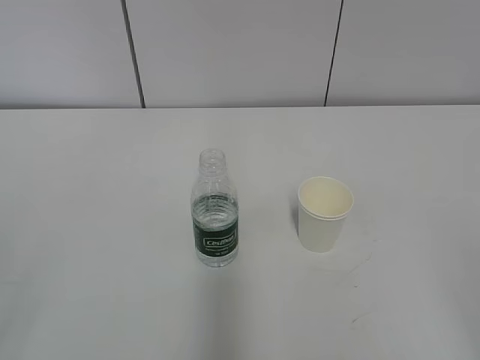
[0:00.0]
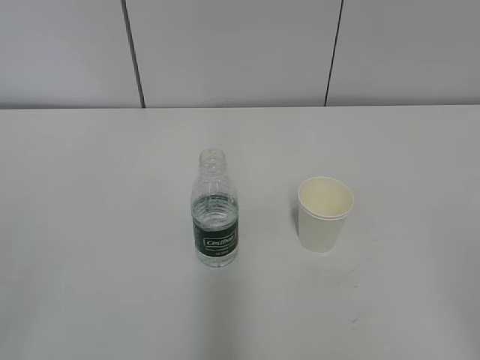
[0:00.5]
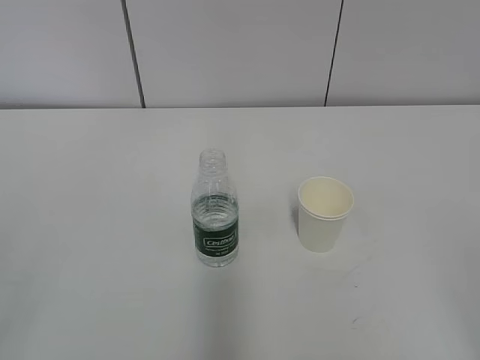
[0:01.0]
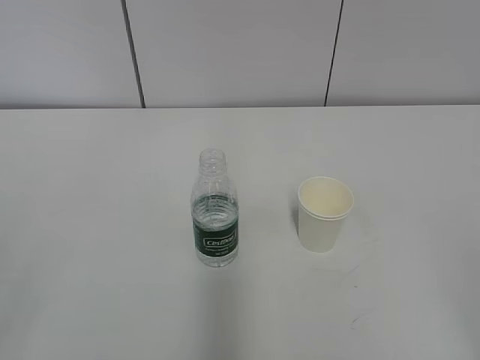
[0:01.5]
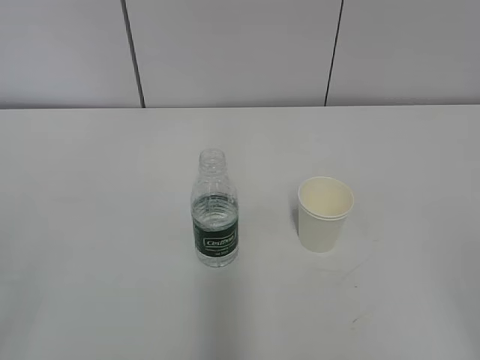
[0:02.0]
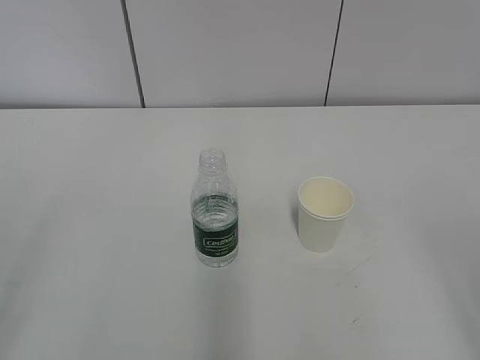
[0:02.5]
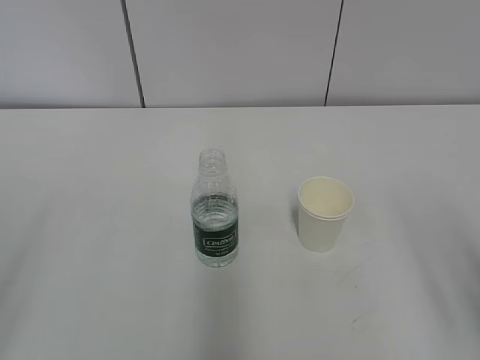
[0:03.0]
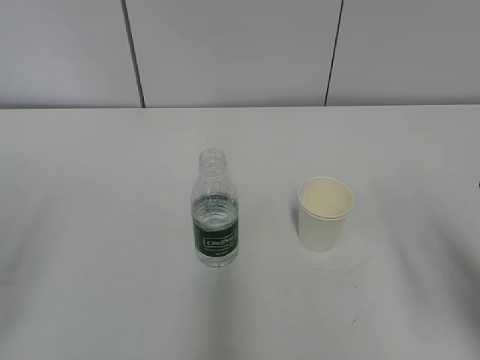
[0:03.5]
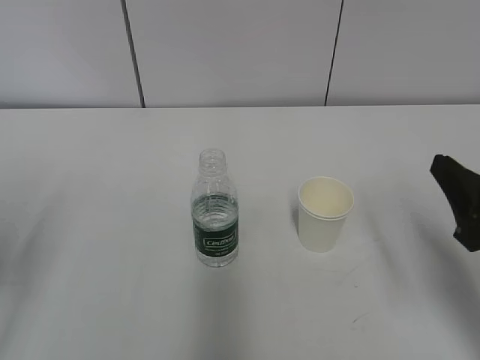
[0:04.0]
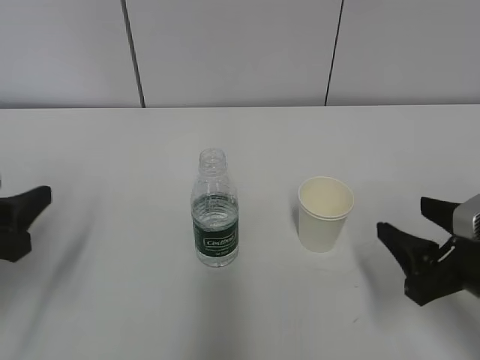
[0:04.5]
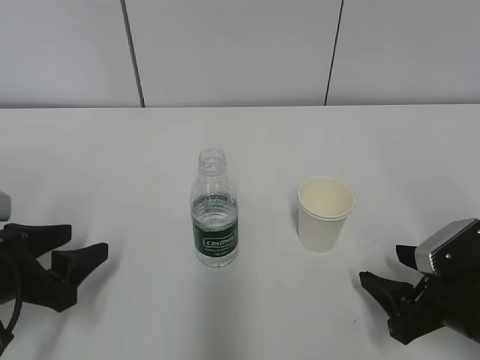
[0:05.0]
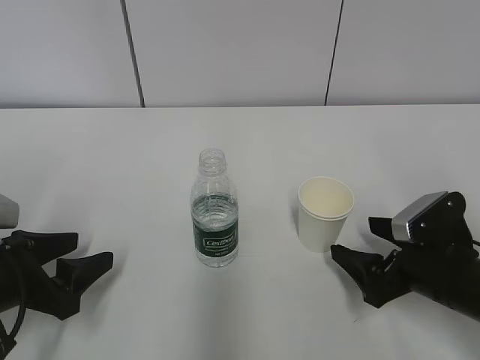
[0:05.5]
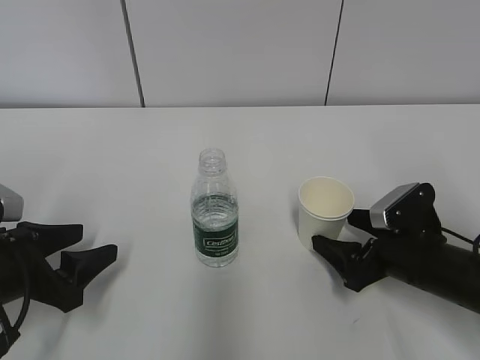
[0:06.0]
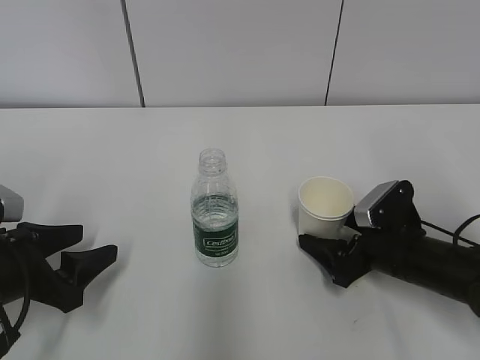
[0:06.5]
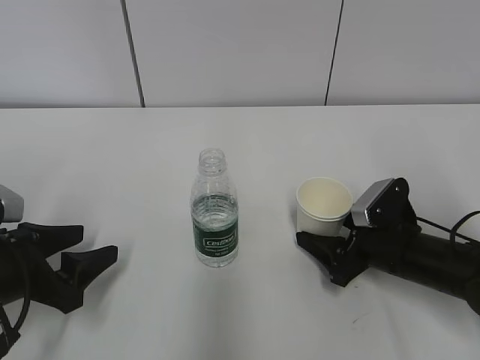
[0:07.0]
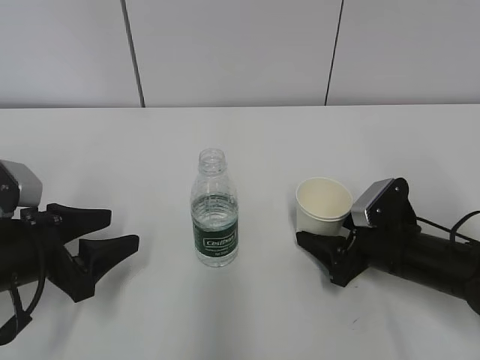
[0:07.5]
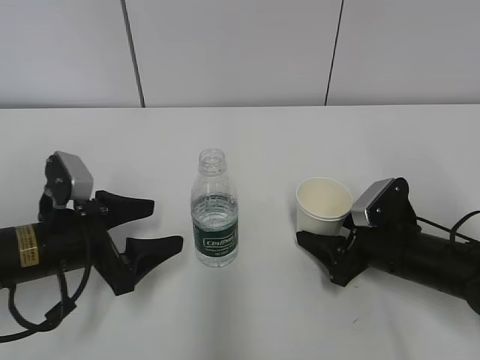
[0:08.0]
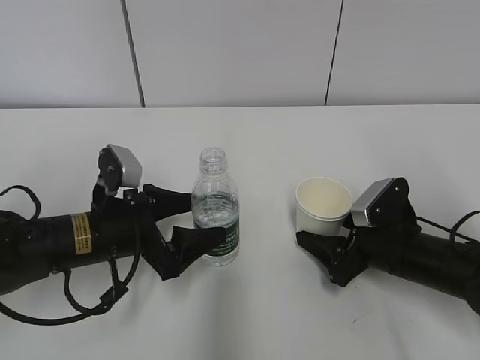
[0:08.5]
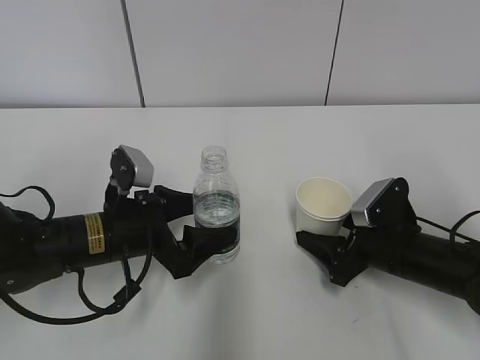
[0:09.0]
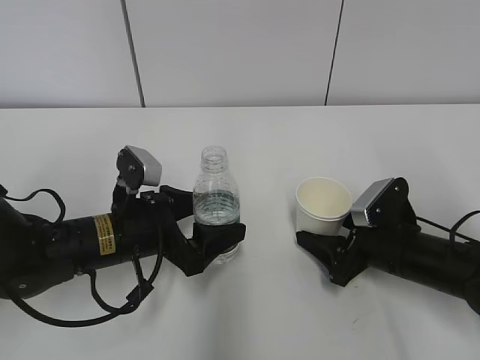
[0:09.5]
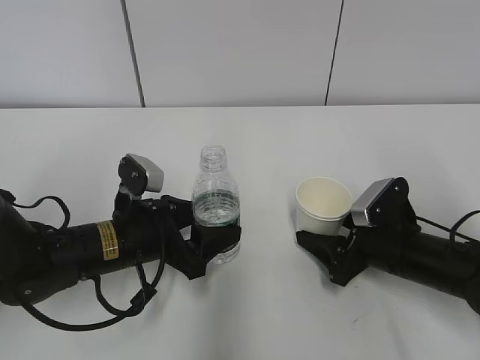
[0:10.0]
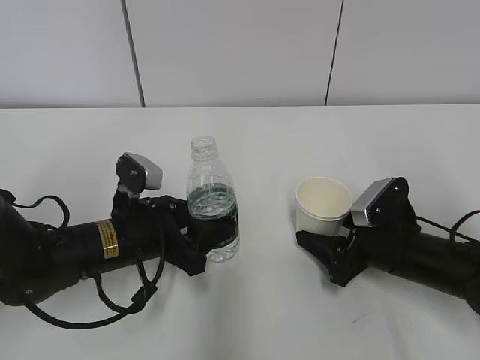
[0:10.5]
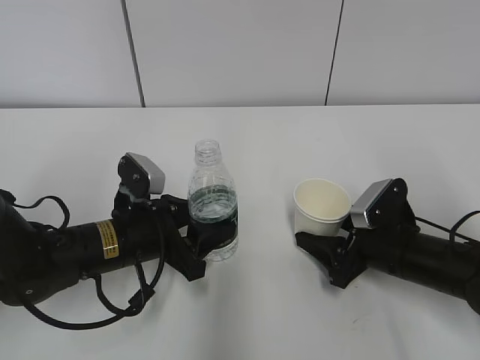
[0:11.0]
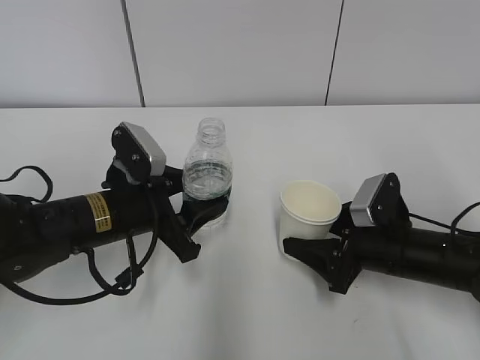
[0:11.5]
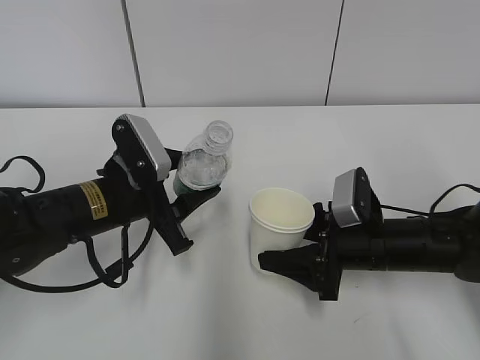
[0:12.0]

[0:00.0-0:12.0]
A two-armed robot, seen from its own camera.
Step, 0:00.0 to 0:09.0: Grab the paper cup with the right hand.
Step, 0:09.5 to 0:11.5: Lift the paper cup with the right hand.
0:02.0 to 0:04.0: The right gripper travels forward and downward by some 20 cm. Meanwhile the left gripper is displaced forward by some 15 cm.
0:04.0 to 0:06.0: The right gripper travels downward and forward by some 15 cm, and opens. The left gripper goes roughly 15 cm downward, to the right and forward.
0:06.0 to 0:08.0: The left gripper is displaced to the right by roughly 5 cm, and opens up, while the right gripper closes.
0:08.0 to 0:10.0: The left gripper moves to the right, some 5 cm, and closes up.
0:10.0 to 0:12.0: The left gripper heads upward, covering some 5 cm, and closes up.

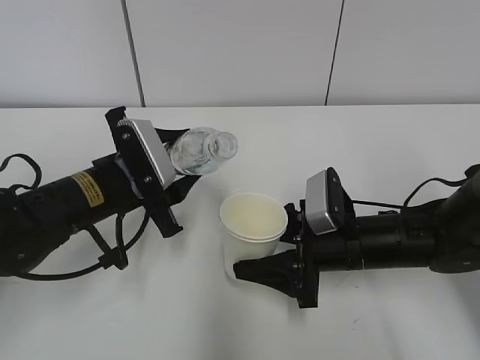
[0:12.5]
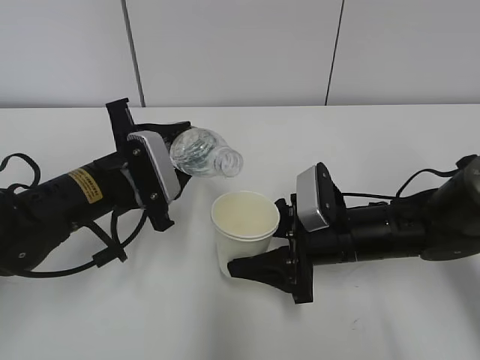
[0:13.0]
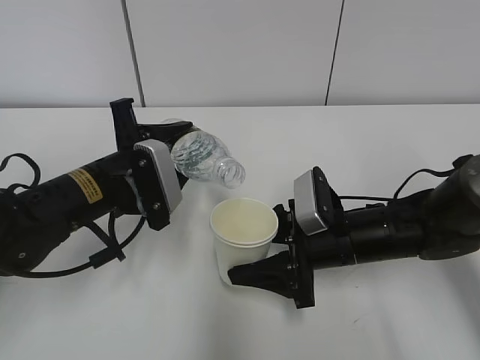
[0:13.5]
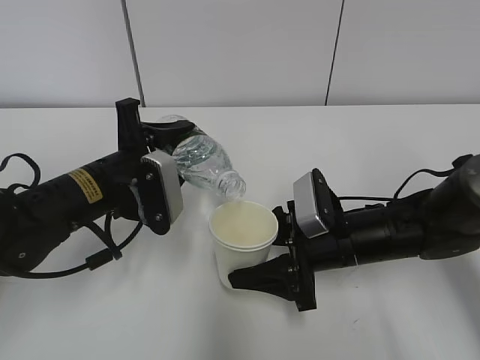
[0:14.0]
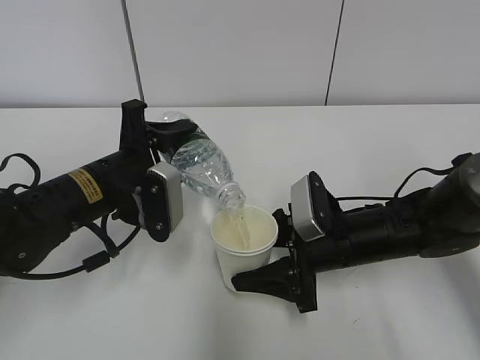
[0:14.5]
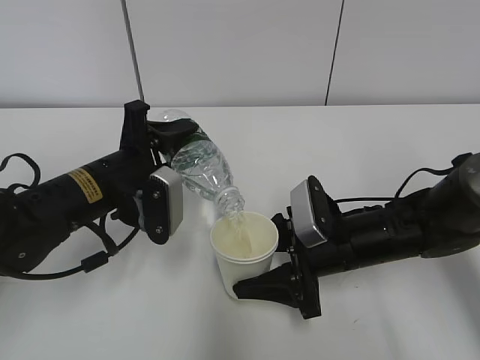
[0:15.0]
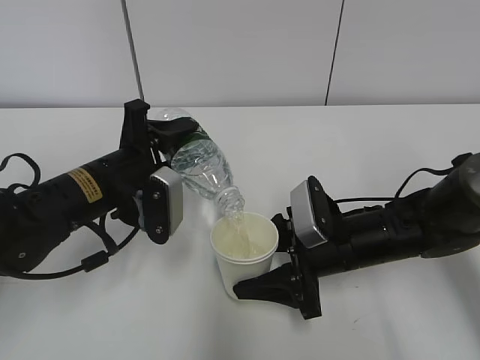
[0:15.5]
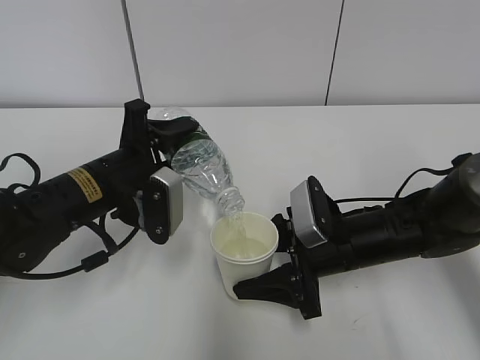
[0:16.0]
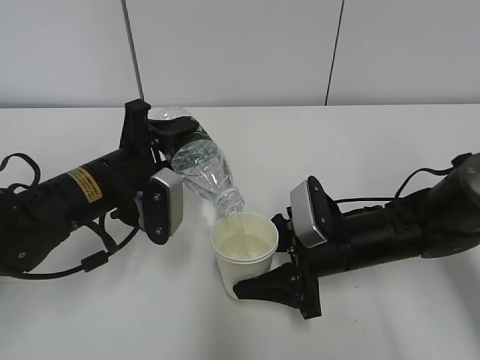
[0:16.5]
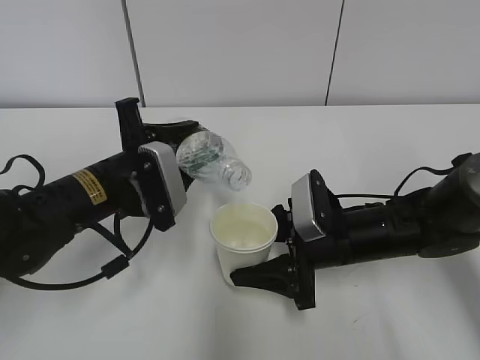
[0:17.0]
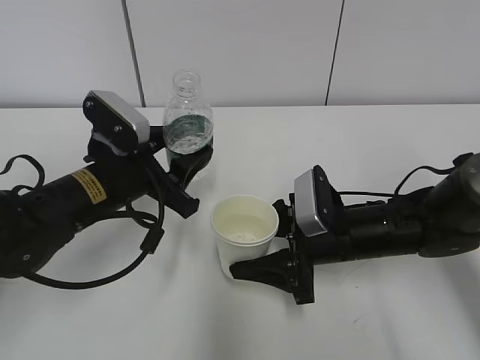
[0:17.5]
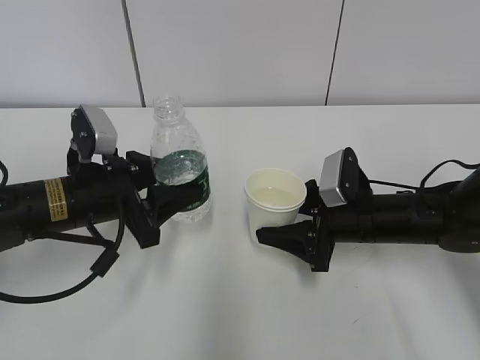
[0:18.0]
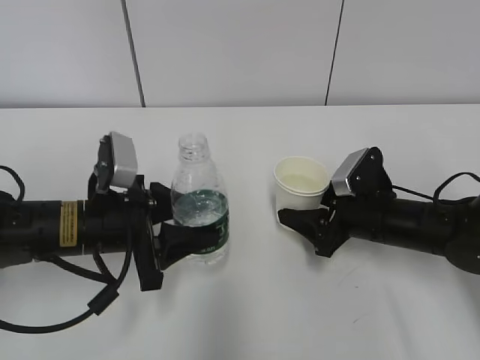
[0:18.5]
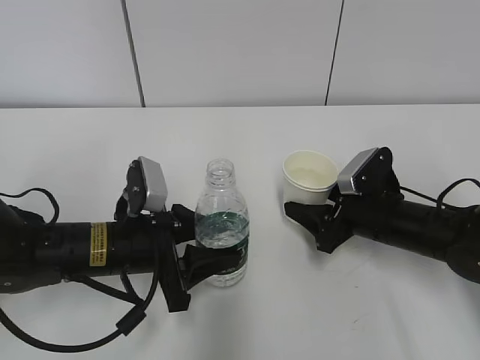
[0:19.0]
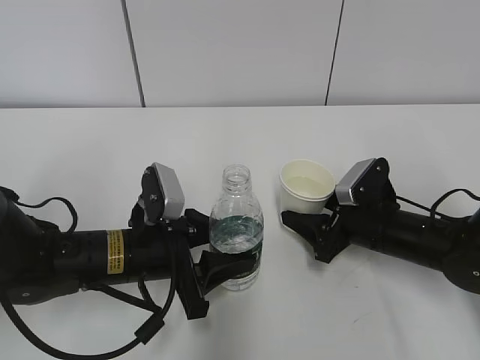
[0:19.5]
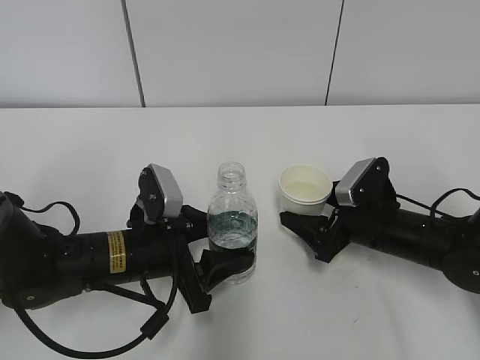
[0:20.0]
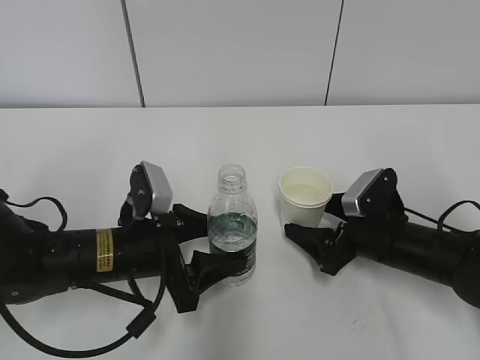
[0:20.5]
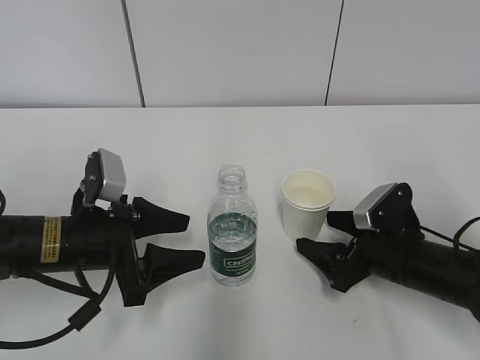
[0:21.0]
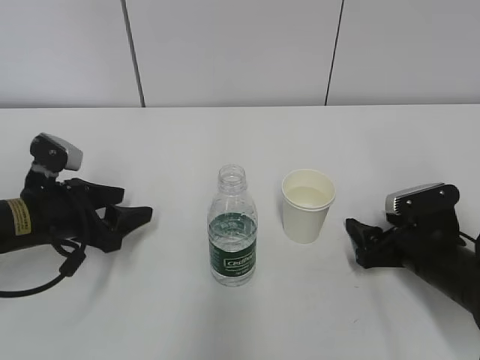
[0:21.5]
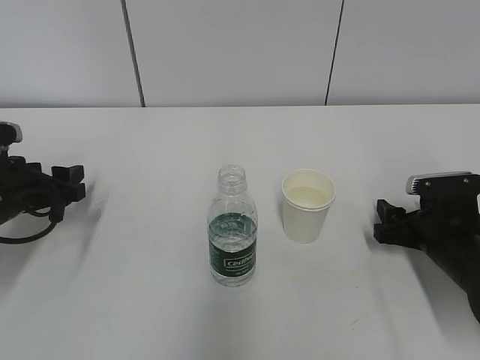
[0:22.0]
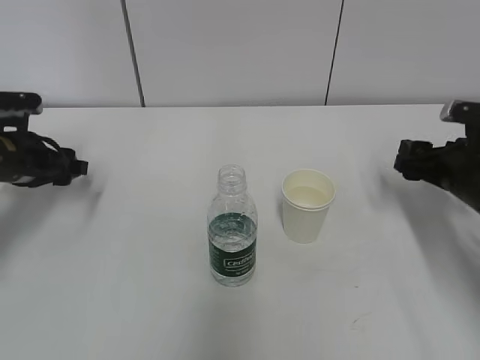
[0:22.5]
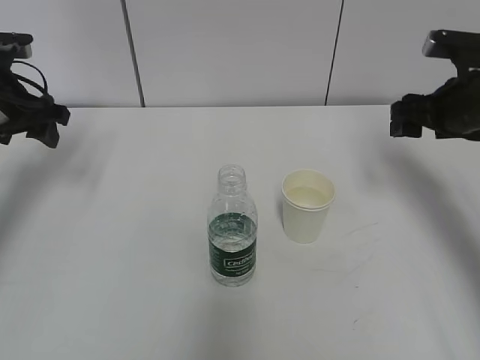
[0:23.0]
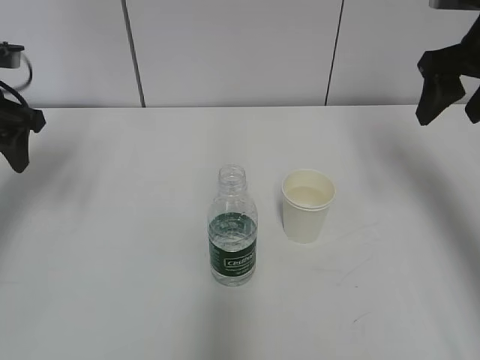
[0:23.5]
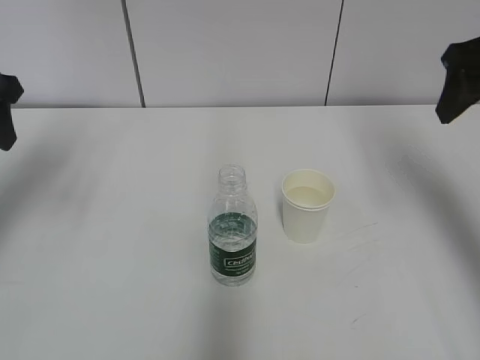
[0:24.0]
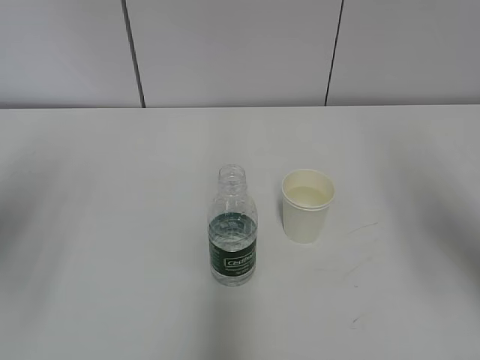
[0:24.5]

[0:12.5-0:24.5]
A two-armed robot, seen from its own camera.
Step, 0:12.5 to 0:14.0: Fill water with the right hand.
0:14.5 to 0:16.5: The grippers move only a little.
0:16.5 to 0:18.5: The right gripper moves to the right, approximately 5 cm.
0:18.5 to 0:20.5: The right gripper opens its fingers, while the left gripper opens.
0:20.5 to 0:22.5: The right gripper shifts approximately 10 cm to the right and upward, and closes up, while the left gripper goes roughly 20 cm to the left and forward.
0:22.5 to 0:24.5: The left gripper heads backward and upward, covering some 25 cm, while the right gripper moves upward and backward, about 25 cm.

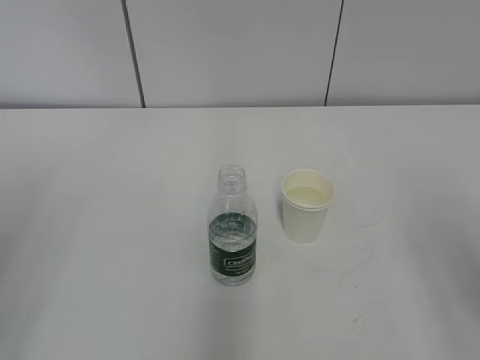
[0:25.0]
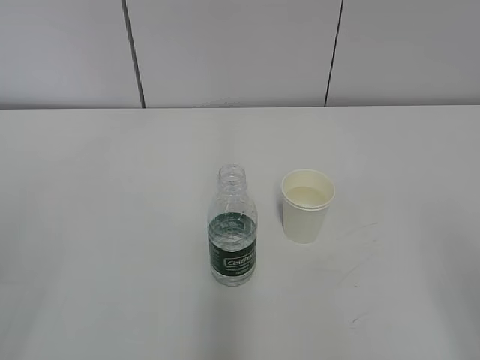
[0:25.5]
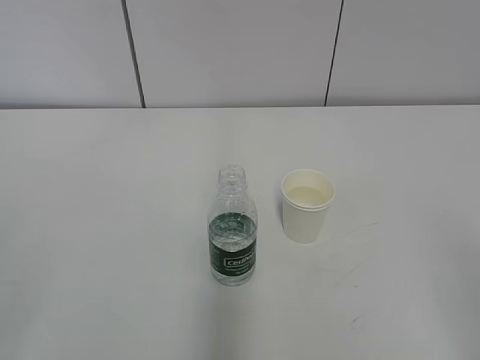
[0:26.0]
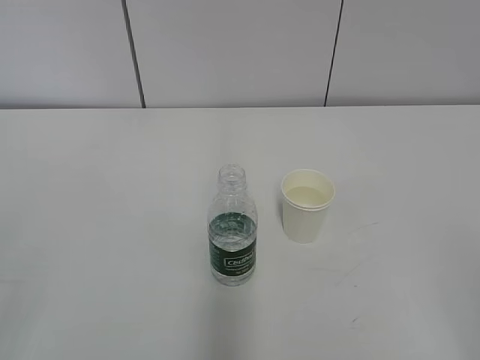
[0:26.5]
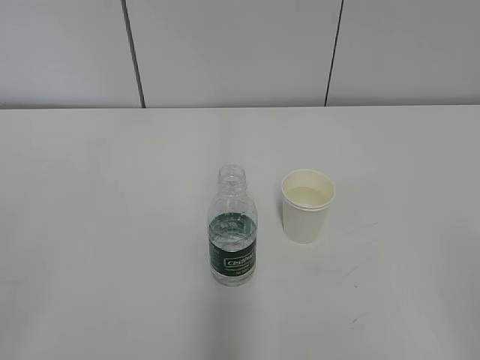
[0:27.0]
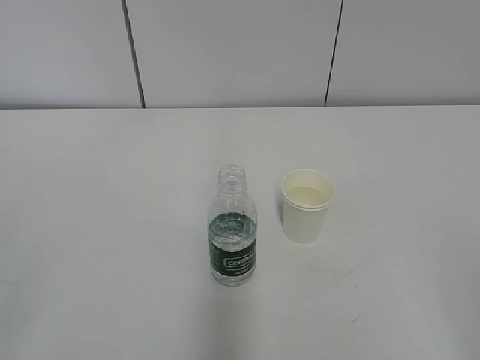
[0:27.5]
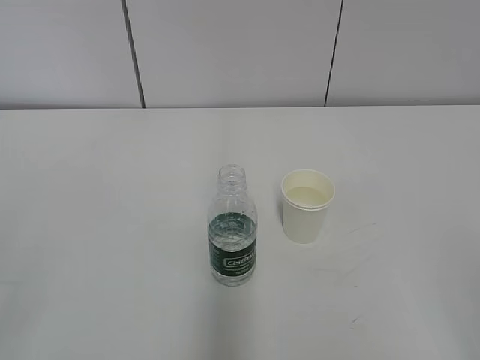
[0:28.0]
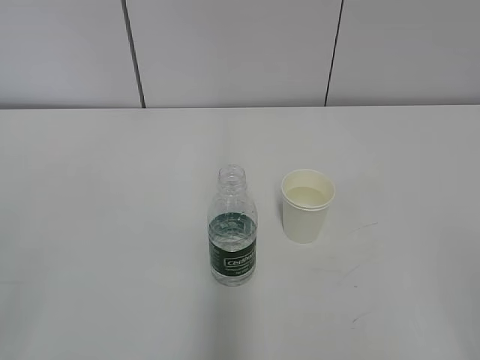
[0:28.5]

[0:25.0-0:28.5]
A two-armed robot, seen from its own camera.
0:27.0 to 0:28.5: Neither gripper changes place.
